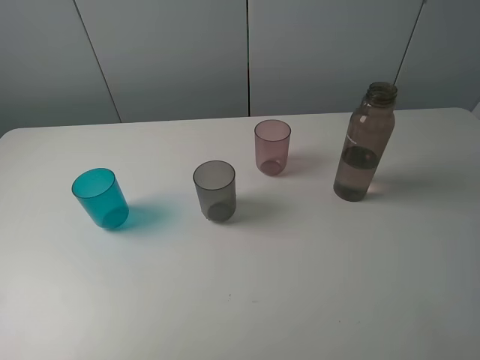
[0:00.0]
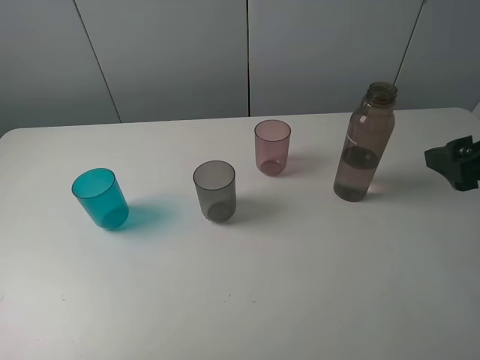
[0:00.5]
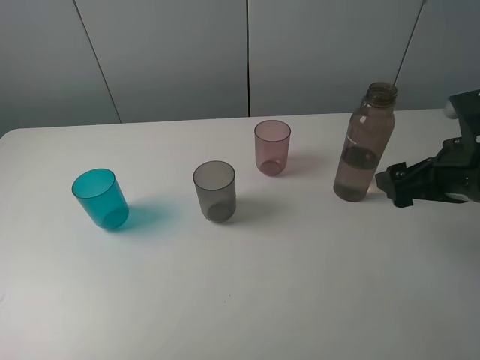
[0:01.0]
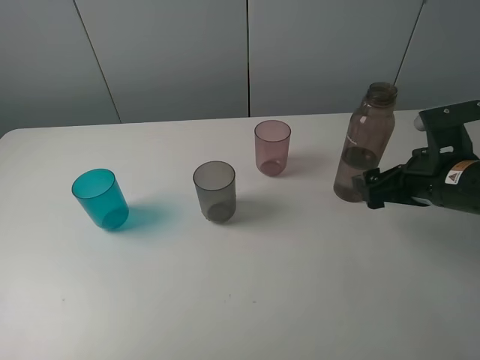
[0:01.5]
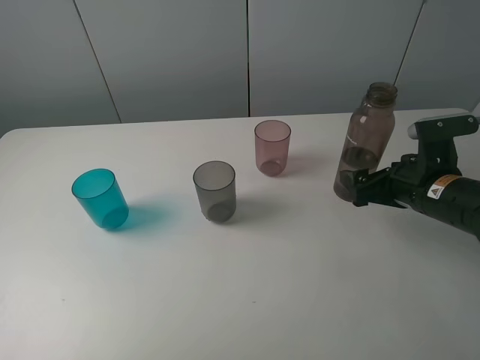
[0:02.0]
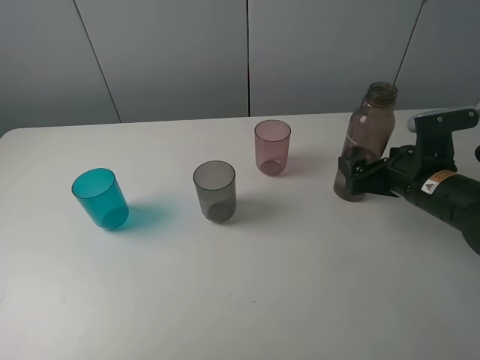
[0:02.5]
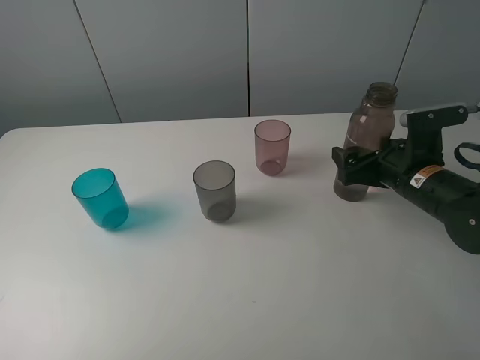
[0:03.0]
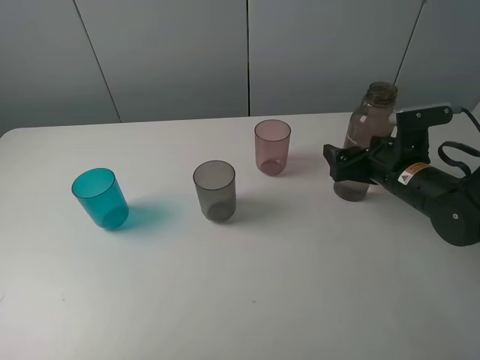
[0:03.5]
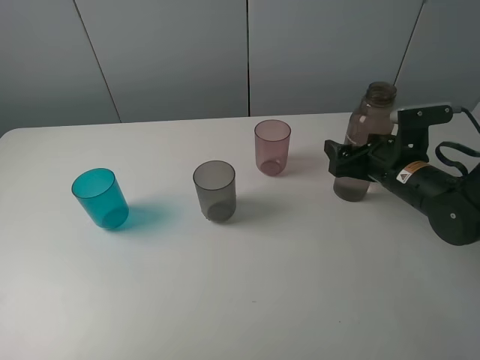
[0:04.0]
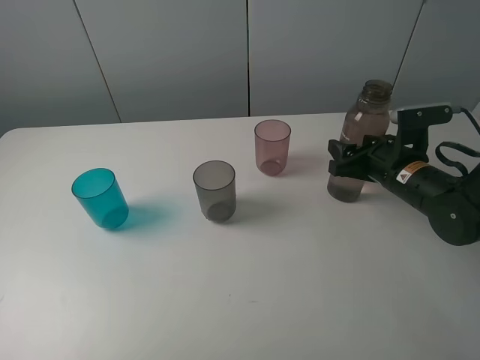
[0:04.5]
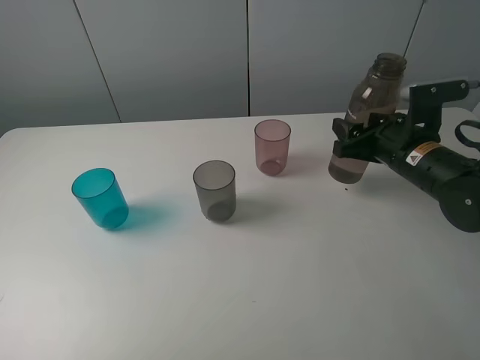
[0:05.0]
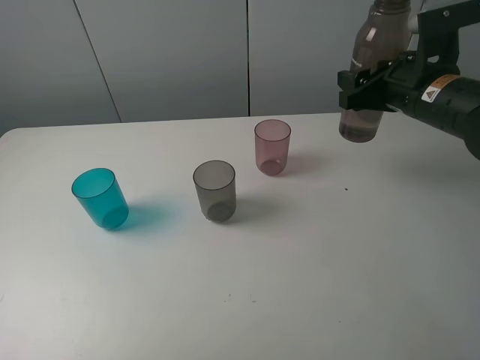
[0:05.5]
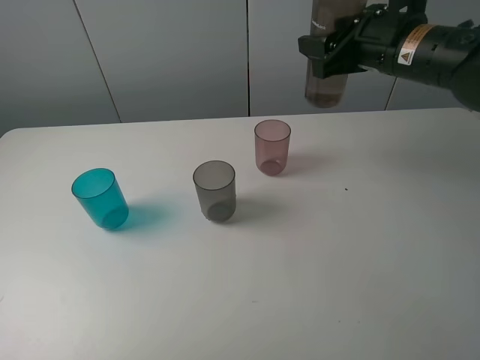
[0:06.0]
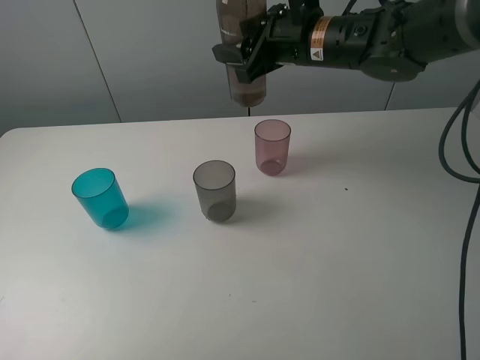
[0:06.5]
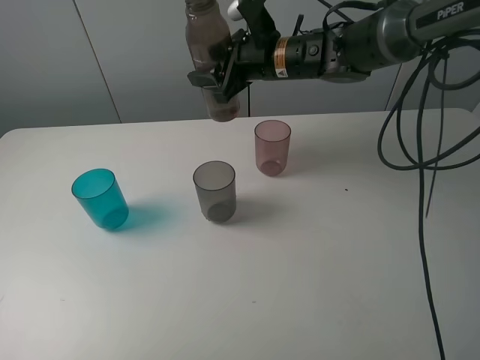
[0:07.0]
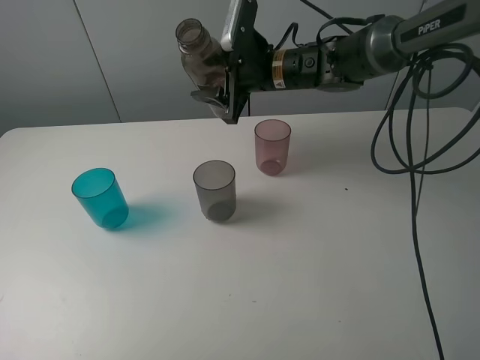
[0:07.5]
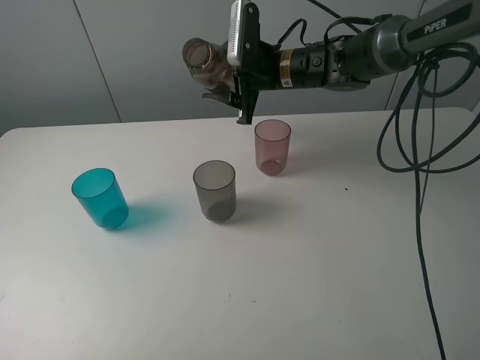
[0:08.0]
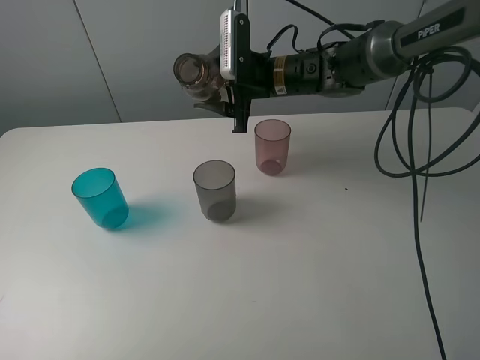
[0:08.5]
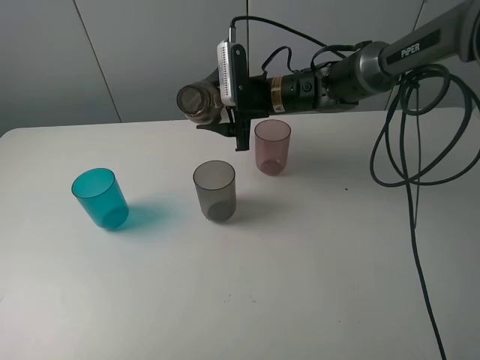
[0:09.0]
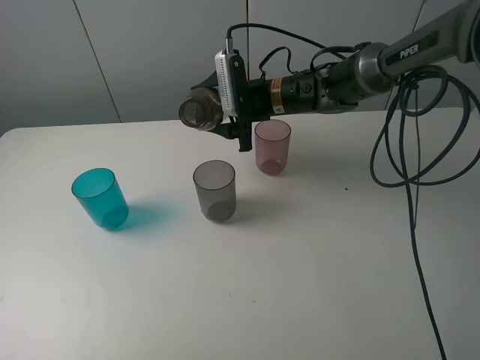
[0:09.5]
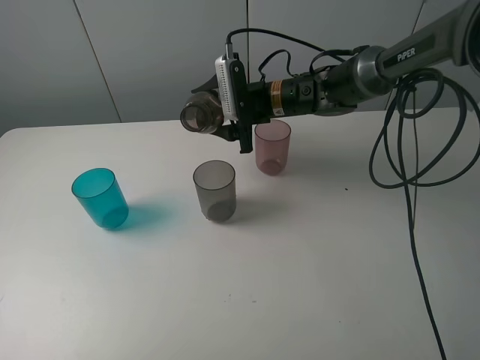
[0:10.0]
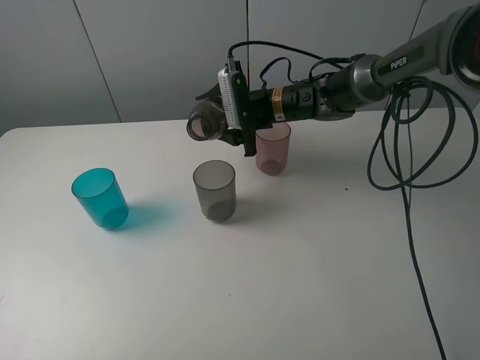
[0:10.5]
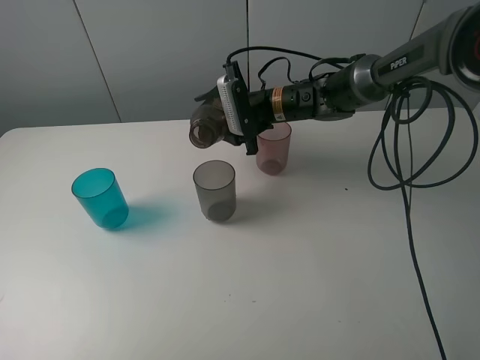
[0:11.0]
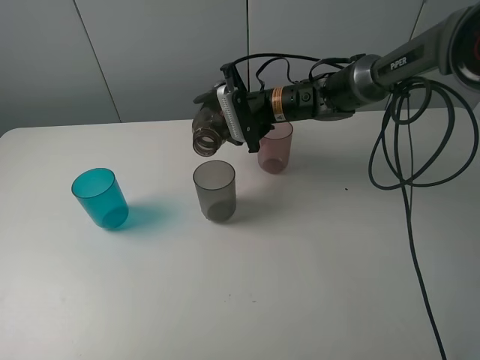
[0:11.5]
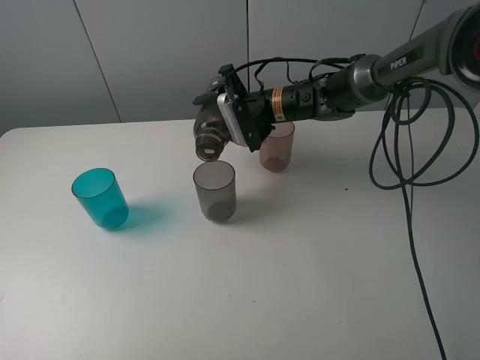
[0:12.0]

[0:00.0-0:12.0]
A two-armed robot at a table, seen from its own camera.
Task of the whole recording: pick up the bottle filled with water and pour water into the middle cup of the three cups.
Step, 0:00.0 to 0:04.0: Grasp the transparent bottle with the right gripper.
Step, 0:04.5 to 0:11.5: Pour water from transparent bottle tobrown cup with the right gripper.
0:00.0 to 0:02.0: The right gripper is displaced downward by approximately 20 cm, and opens.
0:02.0 to 0:04.0: The right gripper ends up about 5 cm from where it was, and closes its fingers.
0:04.0 to 0:06.0: The right gripper moves upward, roughly 15 cm.
0:06.0 to 0:08.0: The right gripper goes roughly 15 cm to the left, forward and downward.
0:08.0 to 0:10.0: The right gripper moves approximately 5 cm.

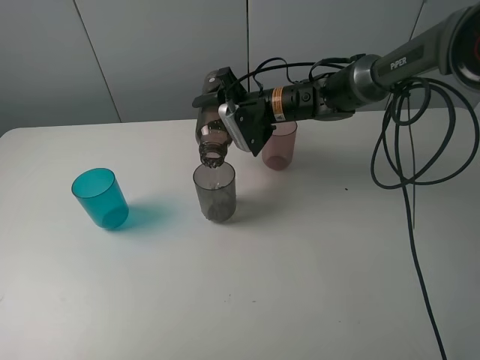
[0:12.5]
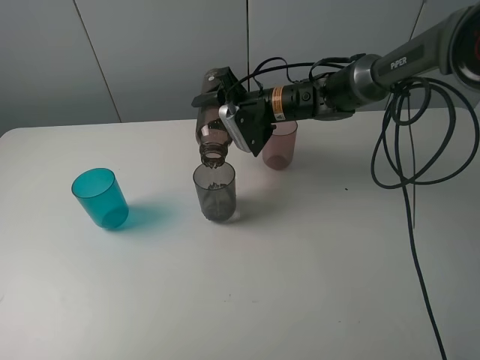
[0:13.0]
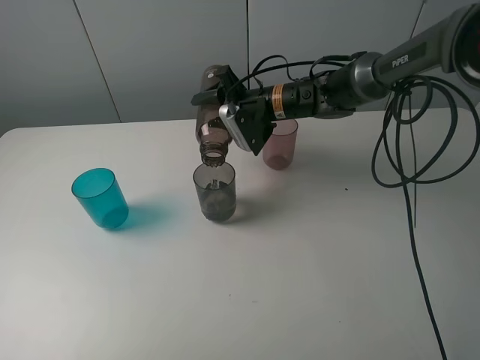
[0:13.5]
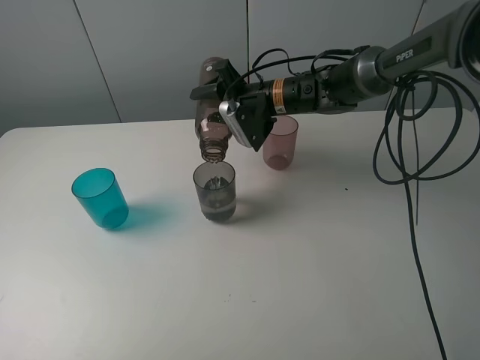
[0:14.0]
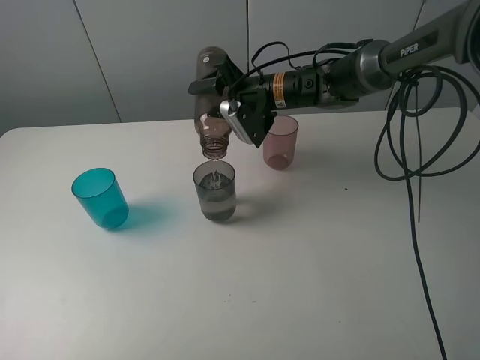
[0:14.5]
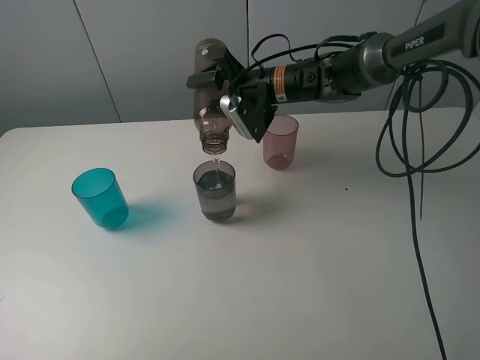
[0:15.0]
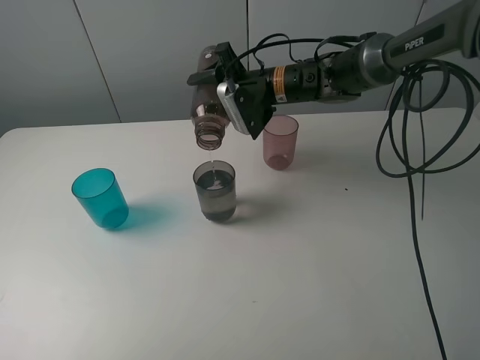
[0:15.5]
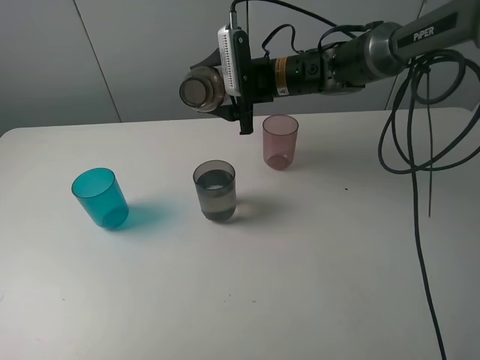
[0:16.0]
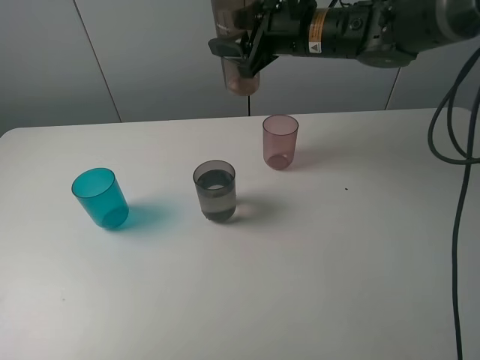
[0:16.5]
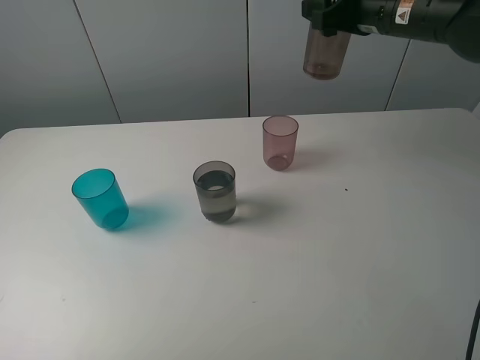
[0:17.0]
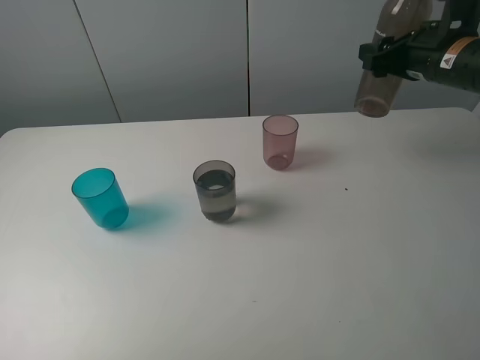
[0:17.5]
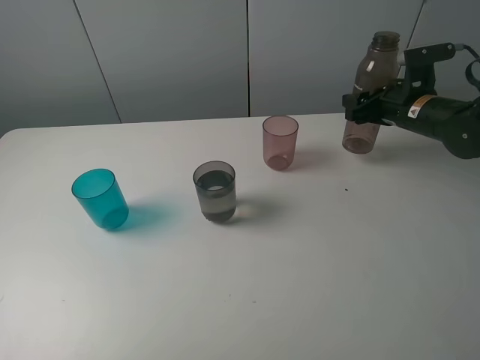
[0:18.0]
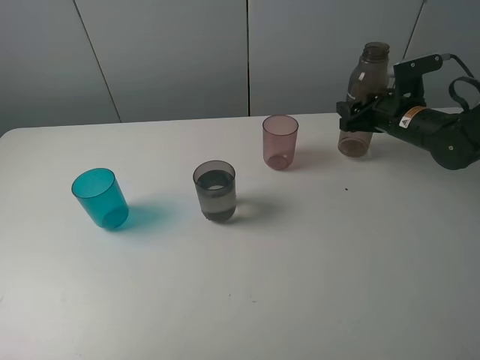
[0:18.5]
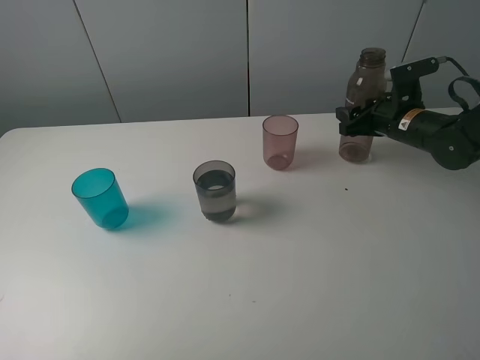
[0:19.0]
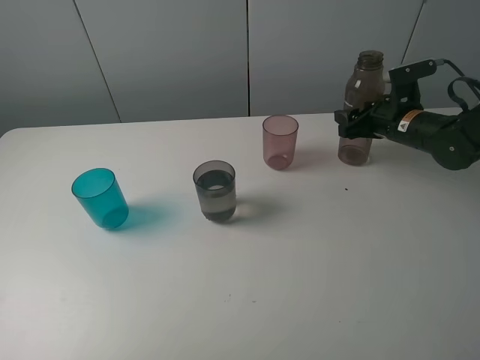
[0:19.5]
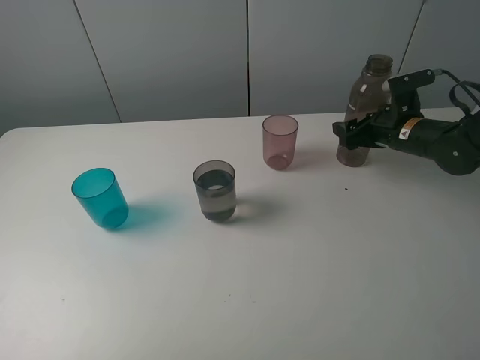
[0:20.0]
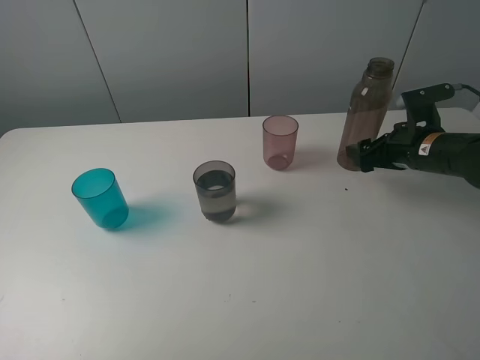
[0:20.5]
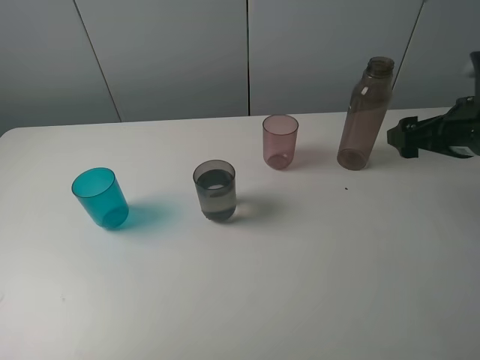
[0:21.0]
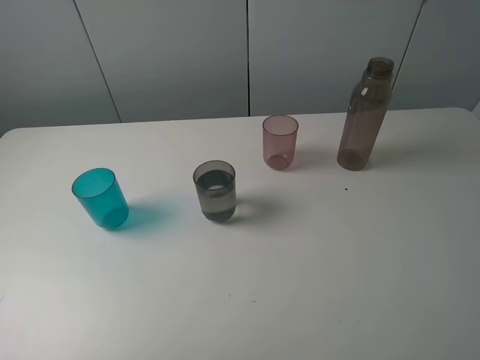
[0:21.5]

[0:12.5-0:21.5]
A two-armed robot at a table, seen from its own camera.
Task of the whole recording: pick up the bottle filled with water and pour water into the middle cup of the three cups.
Step, 0:12.5 to 0:21.0: Place the transparent bottle with the right gripper.
0:12.5 to 0:14.5: The grippers make only small movements.
0:14.5 to 0:17.0: The right gripper heads to the right and upward, covering roughly 20 cm.
0:17.0 to 0:19.5: The right gripper shifts some 15 cm downward.
0:19.5 to 0:21.5: The right gripper is displaced upward and backward by about 35 cm, and opens.

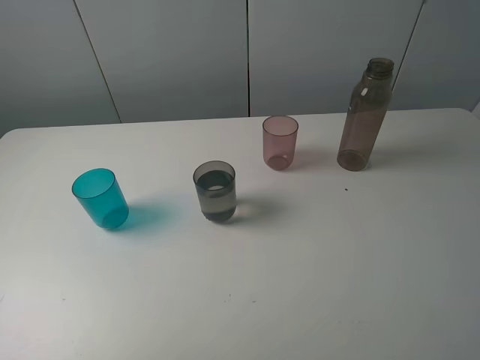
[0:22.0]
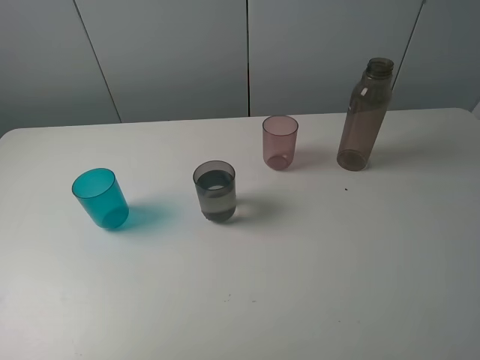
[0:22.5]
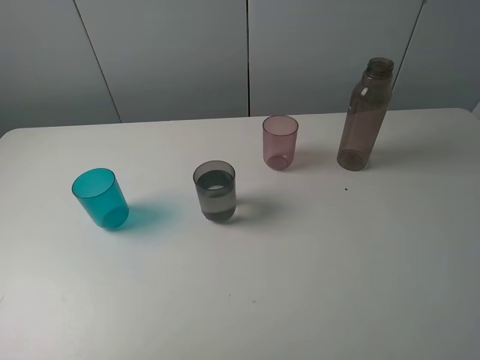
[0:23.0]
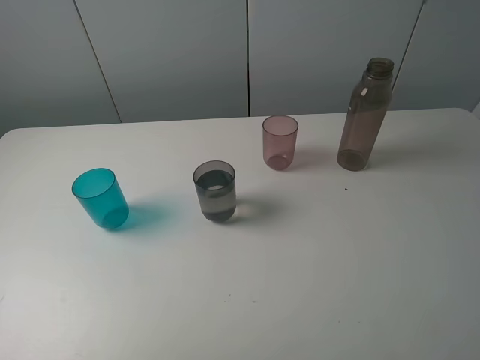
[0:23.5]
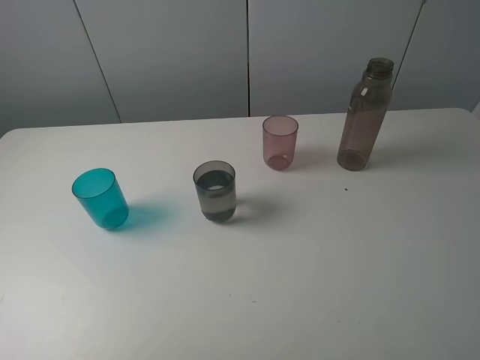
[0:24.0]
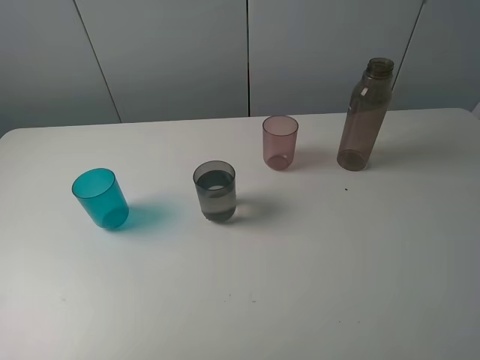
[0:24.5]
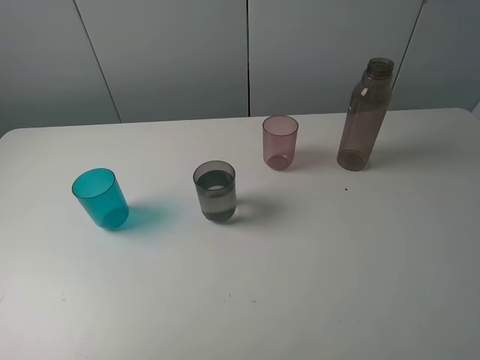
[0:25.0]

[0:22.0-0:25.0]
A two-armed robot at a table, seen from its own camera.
Task of the whole recording: pick up the bottle filled with water and pour water into the middle cup of the three cups.
0:23.5 to 0:25.0: The two grippers keep their place.

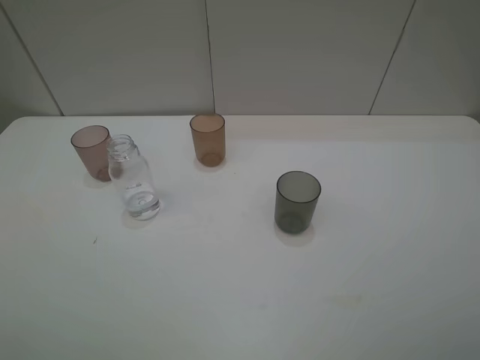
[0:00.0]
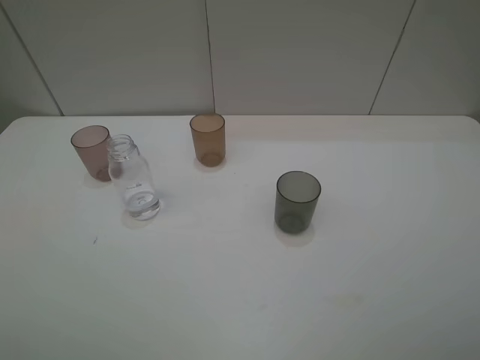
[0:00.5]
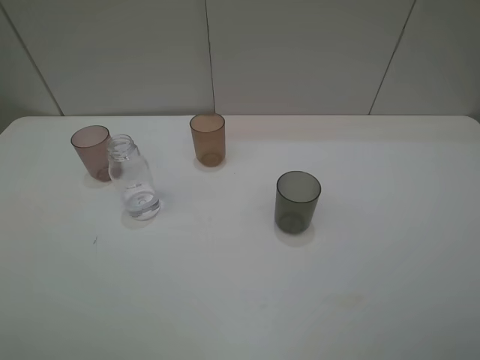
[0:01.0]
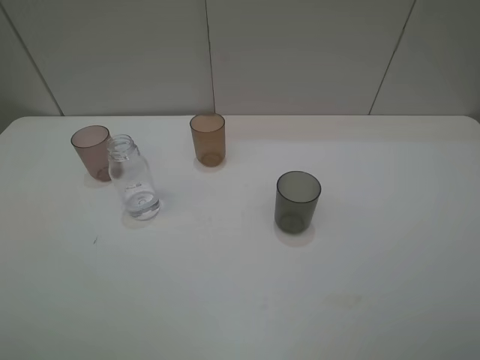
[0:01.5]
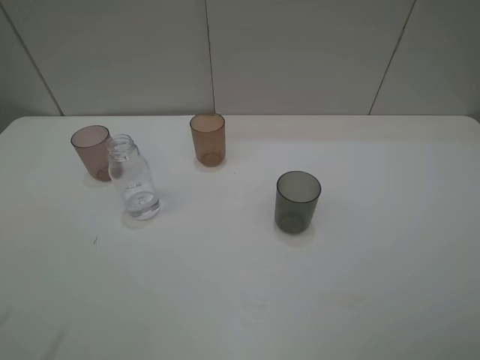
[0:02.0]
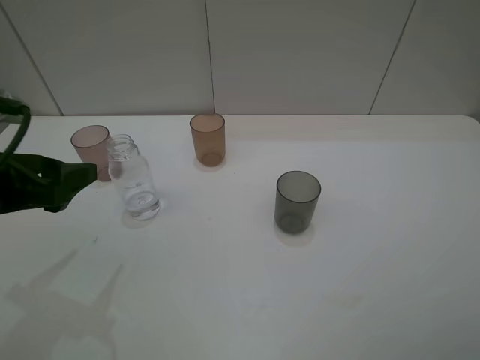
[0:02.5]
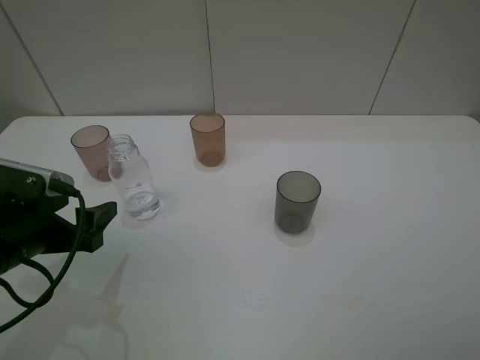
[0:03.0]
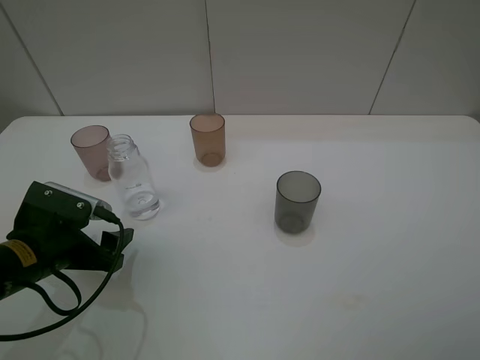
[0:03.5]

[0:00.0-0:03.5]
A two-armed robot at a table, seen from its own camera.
Task of the whole recording: pick up the bottle filled with water and pour water into the middle cup of the three cups.
0:02.0 to 0:03.5: The left gripper is displaced downward and forward by roughly 25 cm.
